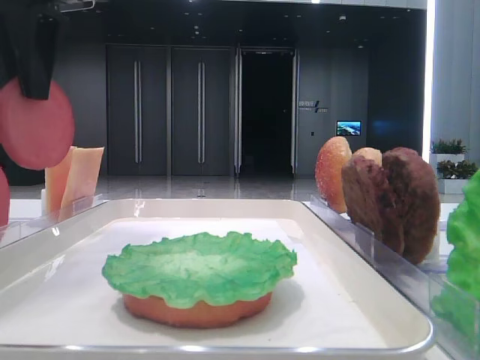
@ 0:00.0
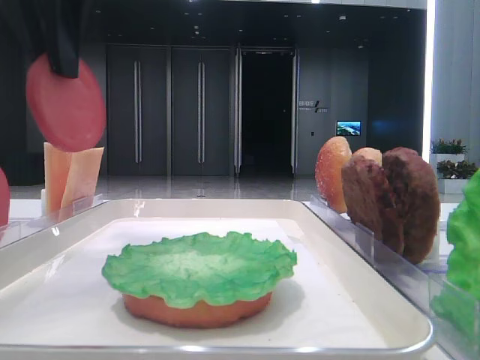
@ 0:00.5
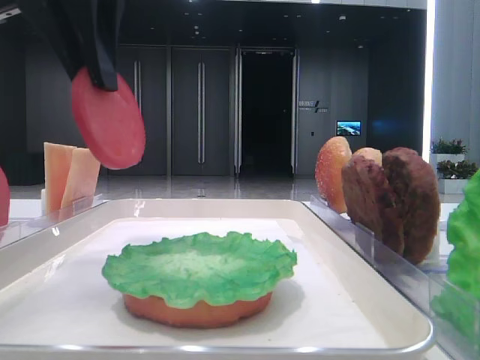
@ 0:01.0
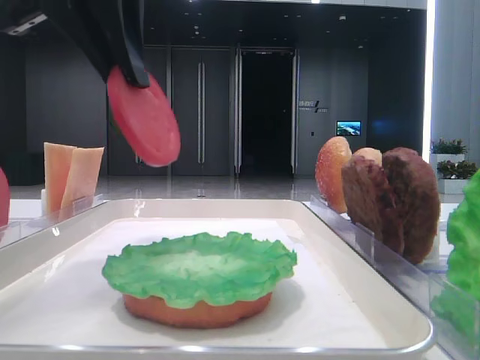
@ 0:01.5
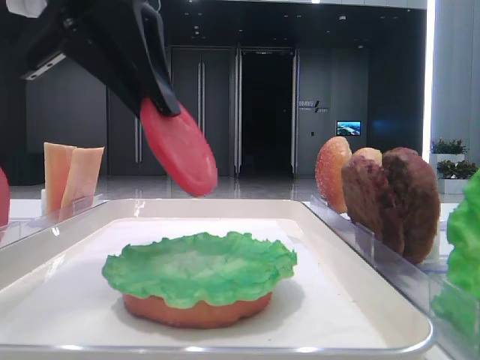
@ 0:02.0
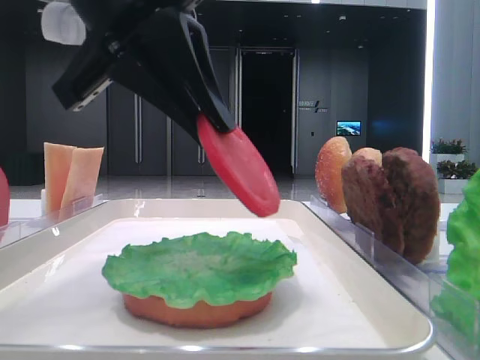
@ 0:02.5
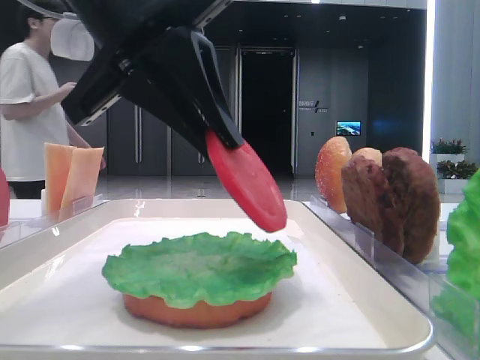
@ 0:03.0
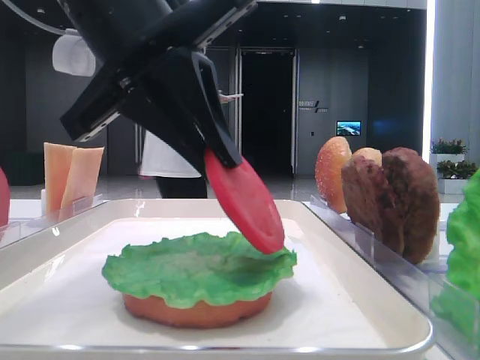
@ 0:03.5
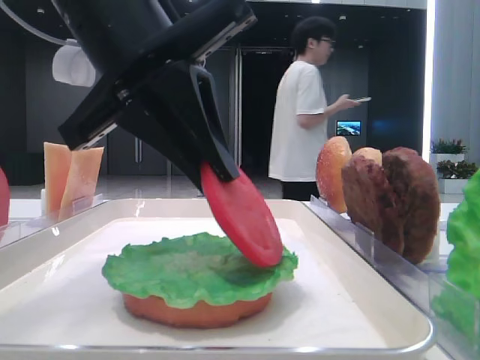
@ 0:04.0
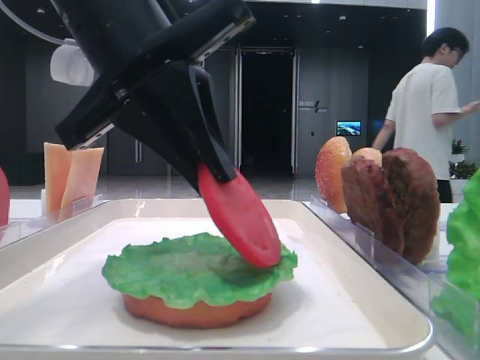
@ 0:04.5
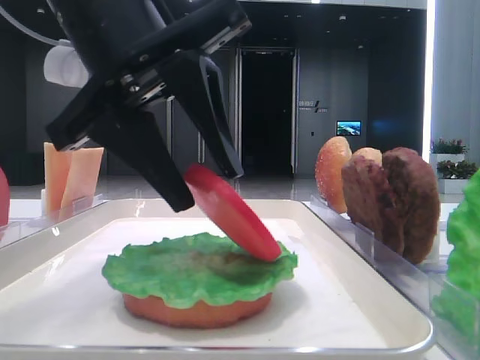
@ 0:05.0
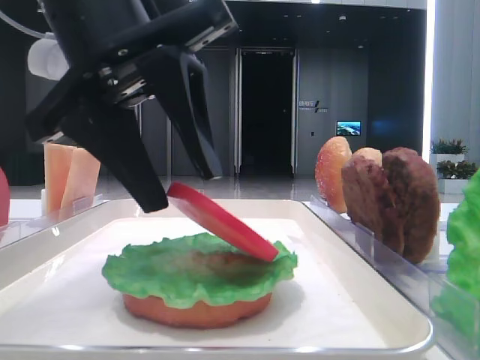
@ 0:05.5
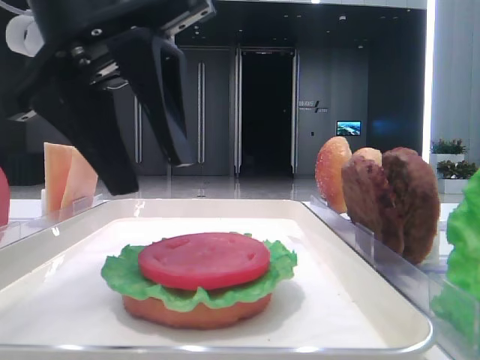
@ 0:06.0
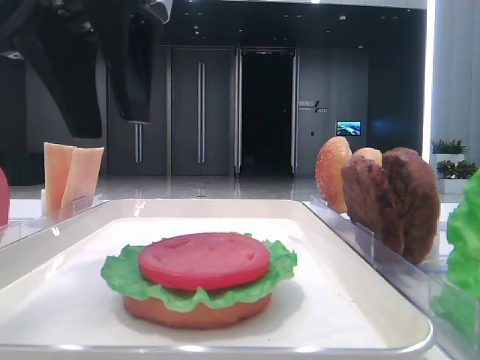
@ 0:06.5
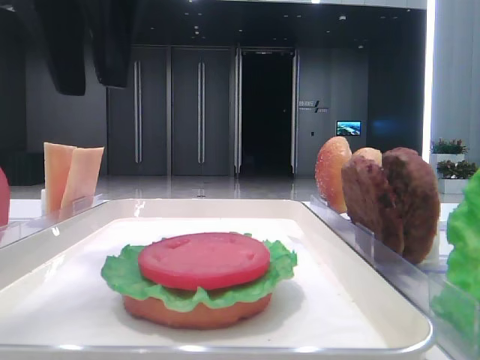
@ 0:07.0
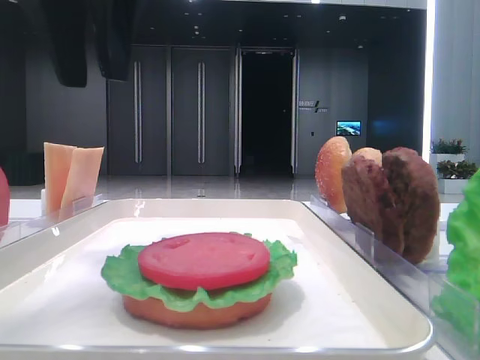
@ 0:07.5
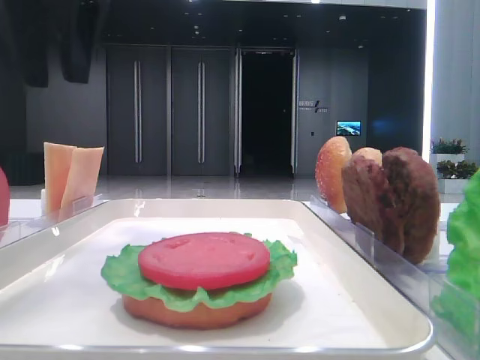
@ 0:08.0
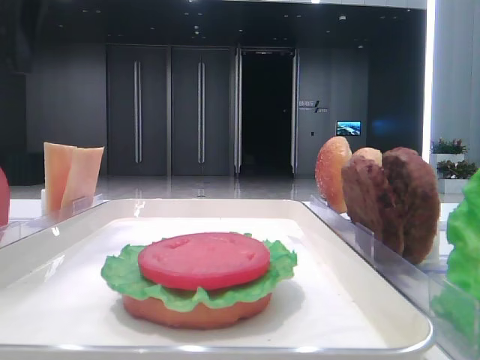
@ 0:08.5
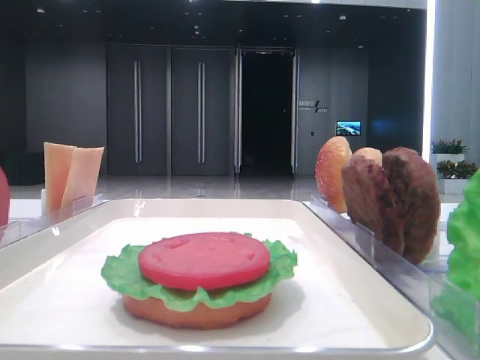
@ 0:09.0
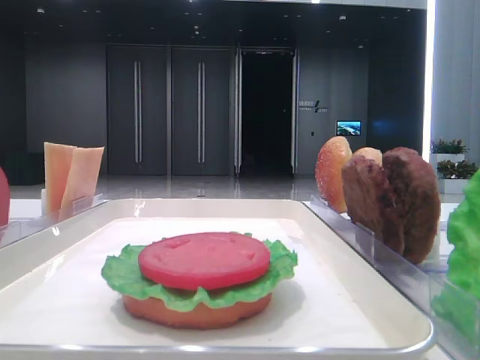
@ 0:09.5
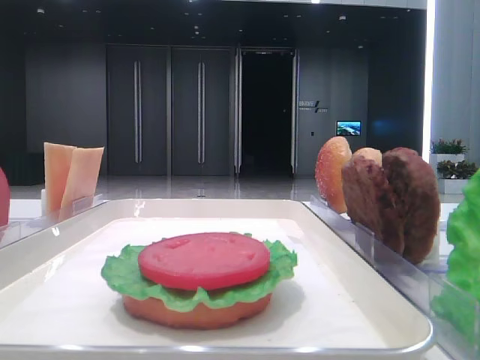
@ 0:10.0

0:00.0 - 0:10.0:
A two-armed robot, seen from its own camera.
Step, 0:00.0 - 0:05.5: Place the tomato slice on the lettuce leaf with the left hand.
0:00.0 - 0:02.0: The left gripper heads to the right, covering approximately 5 cm.
0:02.0 - 0:04.0: The left gripper shifts by some 5 cm.
0:04.0 - 0:06.0: The left gripper opens.
0:06.0 - 0:08.0: The left gripper goes roughly 10 cm upward, forward and to the left.
0:08.0 - 0:10.0: The left gripper moves to the left, some 15 cm.
